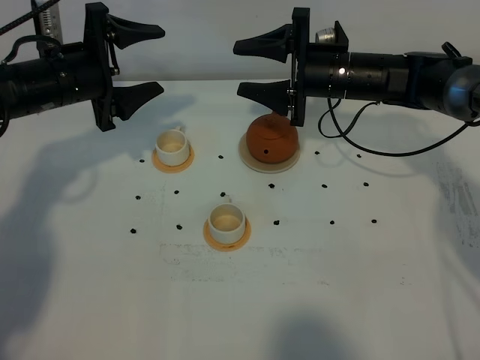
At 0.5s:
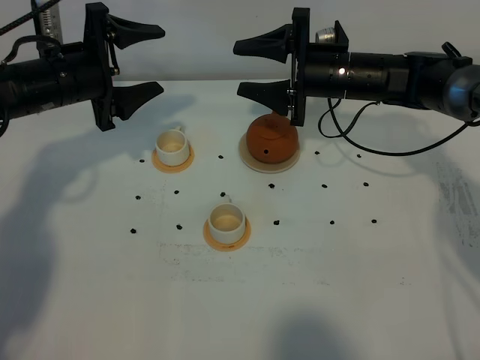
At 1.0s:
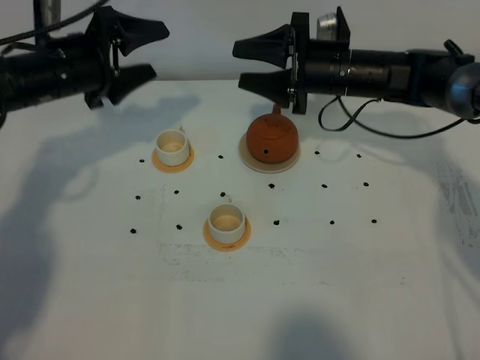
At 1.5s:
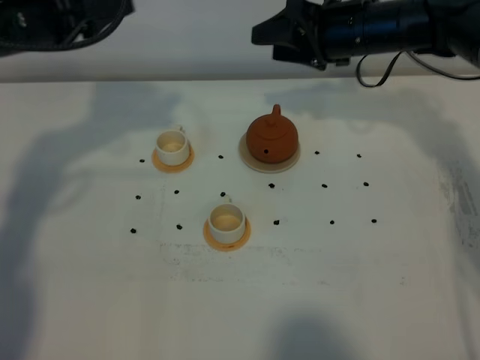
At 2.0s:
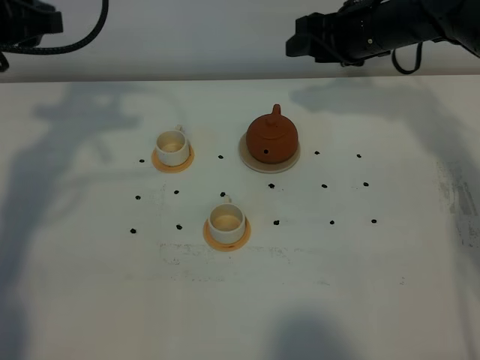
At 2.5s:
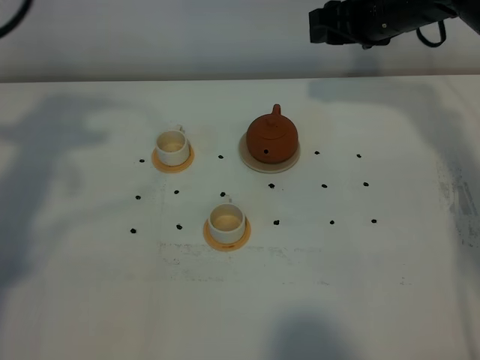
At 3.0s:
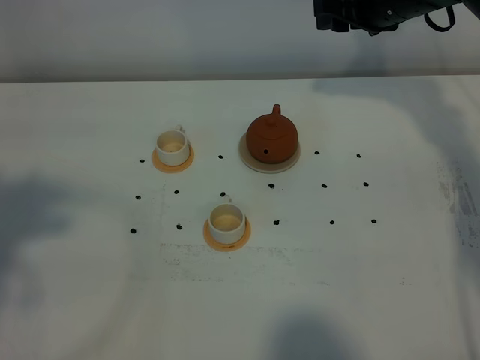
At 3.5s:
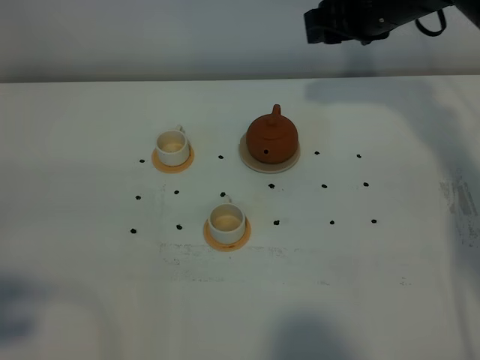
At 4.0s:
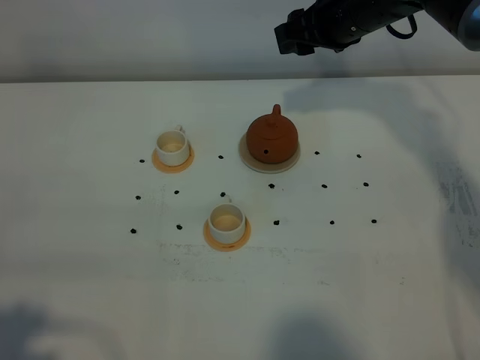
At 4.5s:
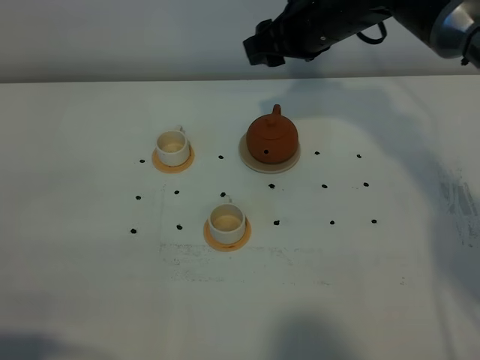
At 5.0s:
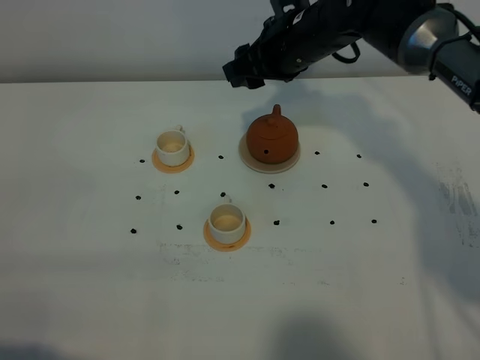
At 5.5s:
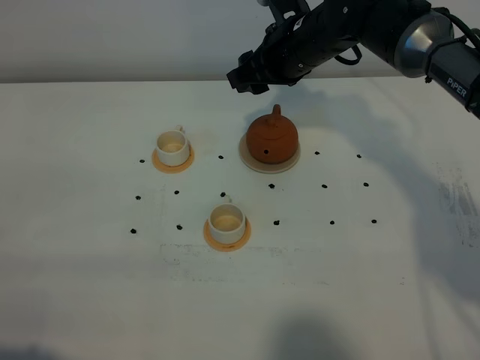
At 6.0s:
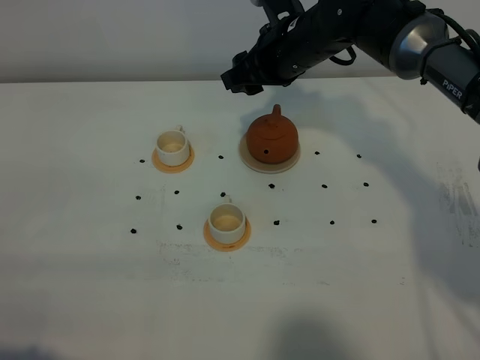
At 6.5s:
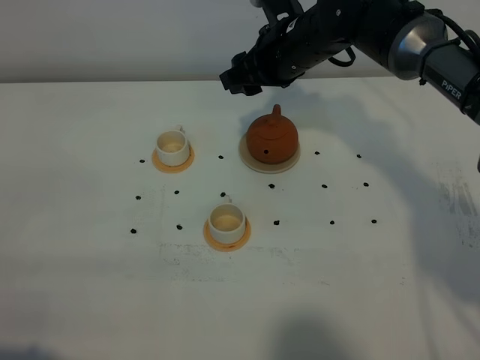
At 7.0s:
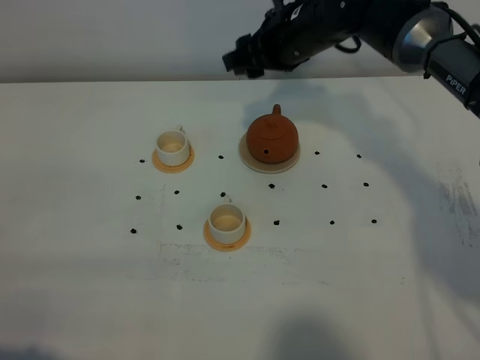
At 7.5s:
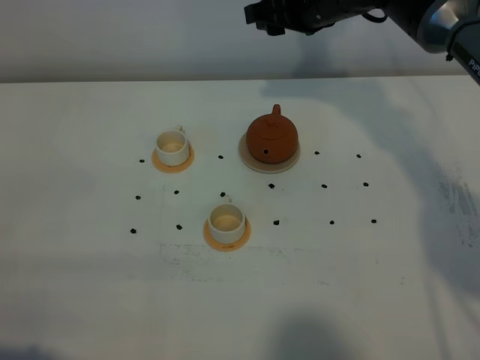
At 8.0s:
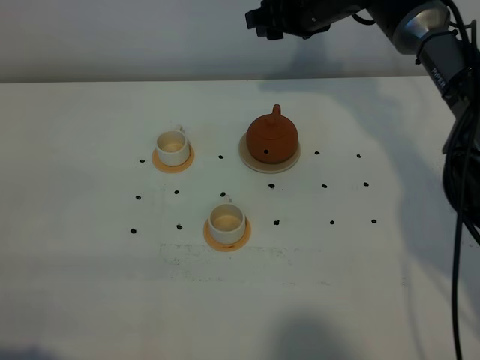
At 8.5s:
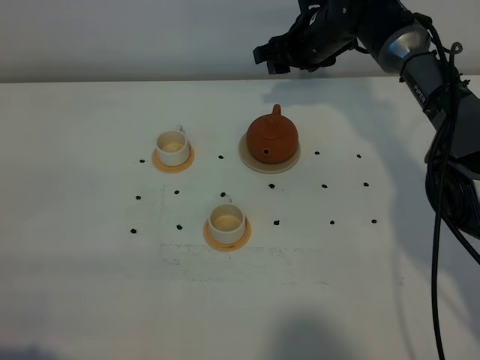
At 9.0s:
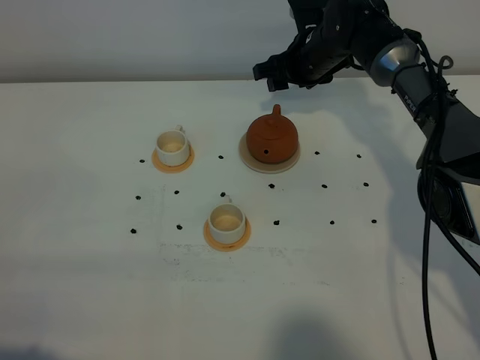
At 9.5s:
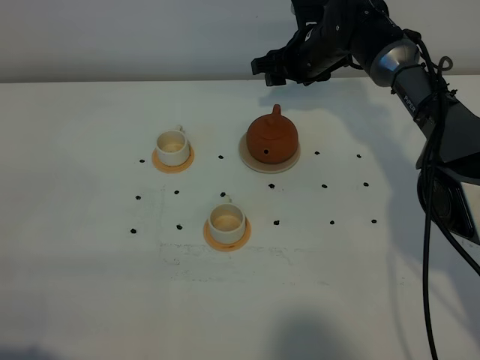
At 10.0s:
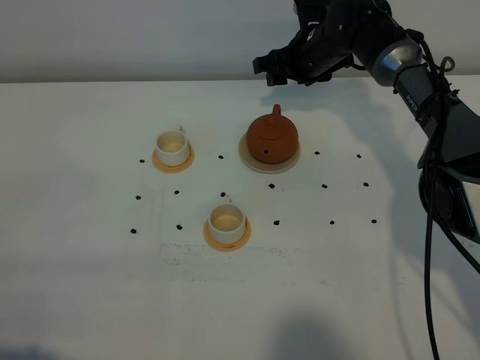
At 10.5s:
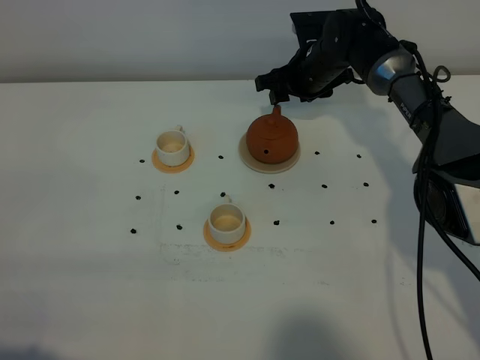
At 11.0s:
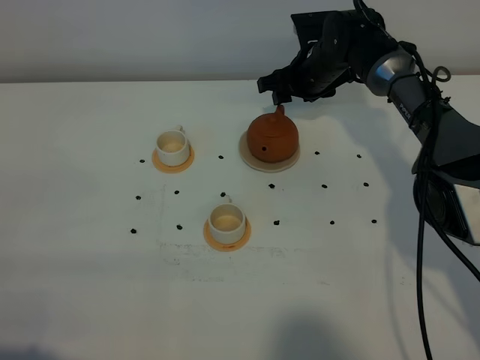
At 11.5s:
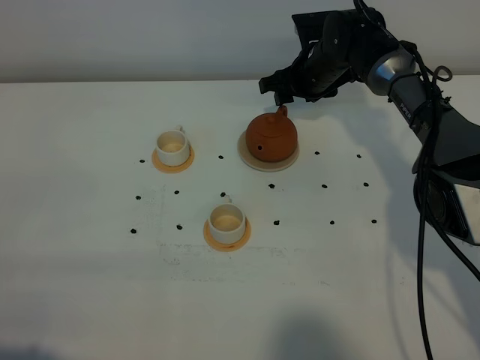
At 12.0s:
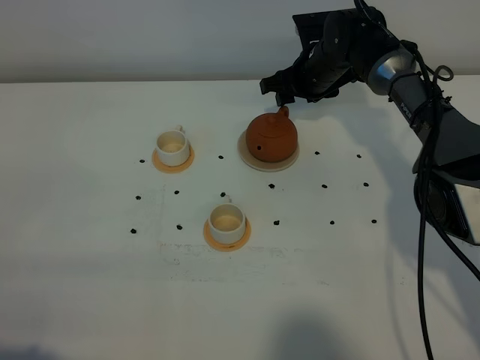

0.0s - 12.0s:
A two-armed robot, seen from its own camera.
Task of the whole recording: grasp the brown teapot and pour the tea into the two white teacups one by one, put the brown teapot back in its original place.
0.0s - 2.0s: The left gripper moves upward and to the left, some 15 cm, and closes. Meanwhile the right gripper shifts by some 5 cm.
2.0s - 4.0s: The left gripper travels backward by roughly 35 cm.
4.0s - 6.0s: The right gripper is displaced to the left by approximately 5 cm. Meanwhile the left gripper moves downward, about 10 cm.
6.0s - 8.0s: The right gripper goes roughly 5 cm forward.
8.0s - 10.0s: The right gripper moves downward, approximately 10 cm.
10.0s - 12.0s: The grippers stay close to where they were, moving slightly.

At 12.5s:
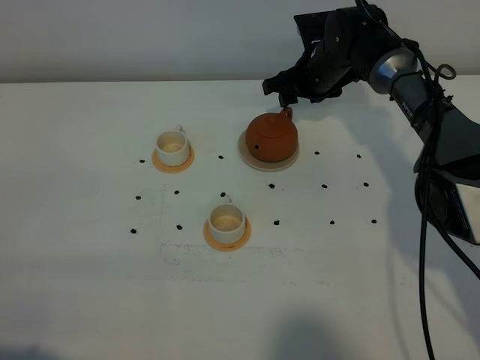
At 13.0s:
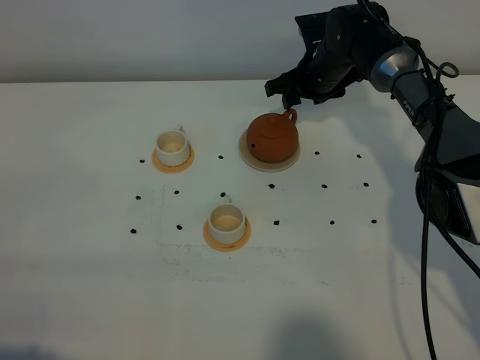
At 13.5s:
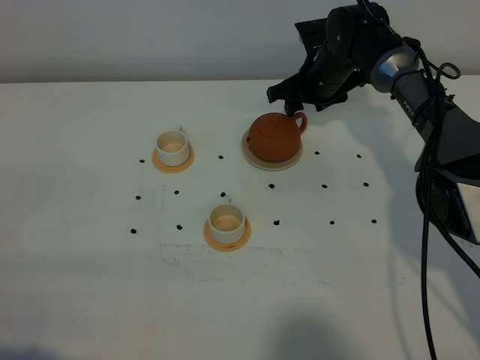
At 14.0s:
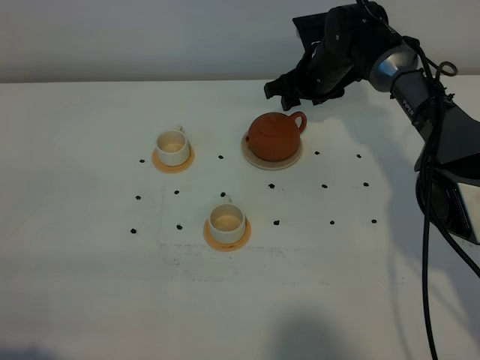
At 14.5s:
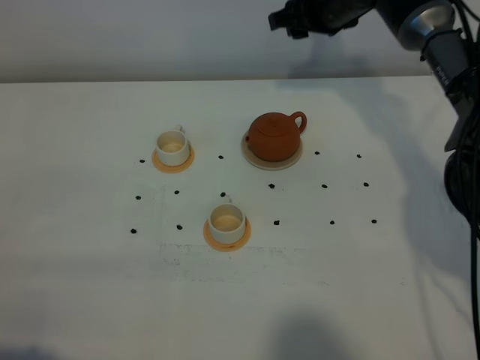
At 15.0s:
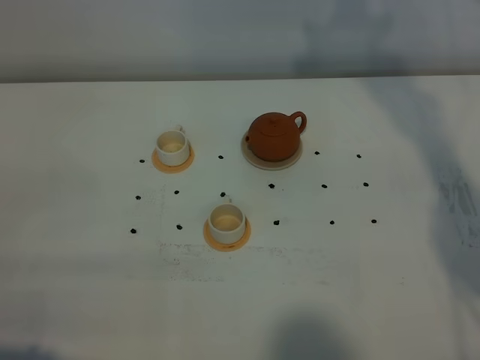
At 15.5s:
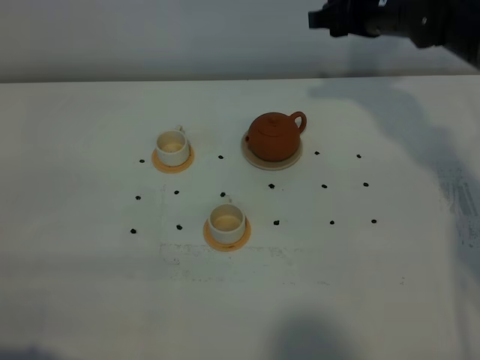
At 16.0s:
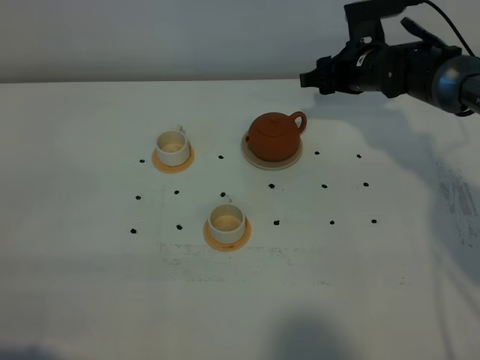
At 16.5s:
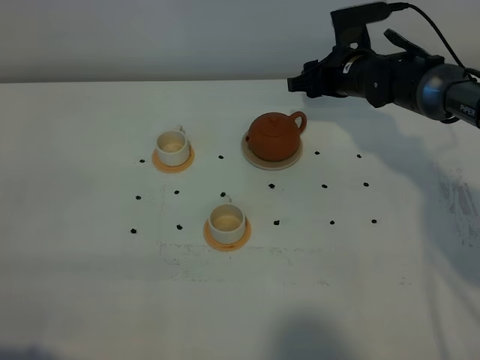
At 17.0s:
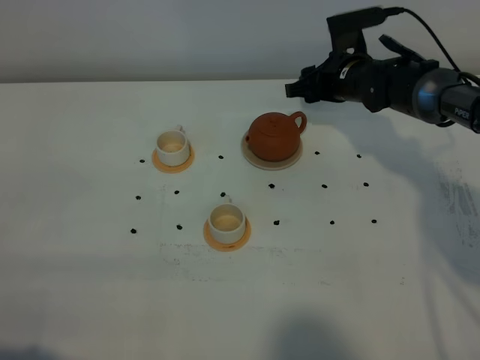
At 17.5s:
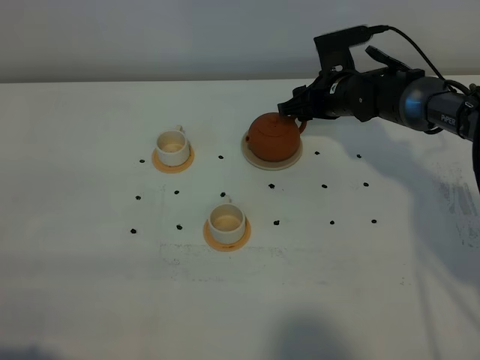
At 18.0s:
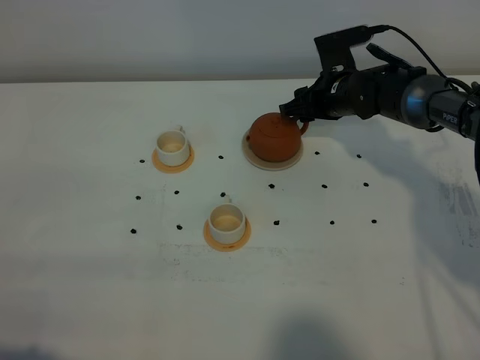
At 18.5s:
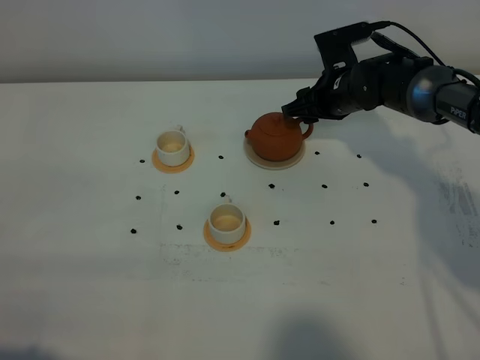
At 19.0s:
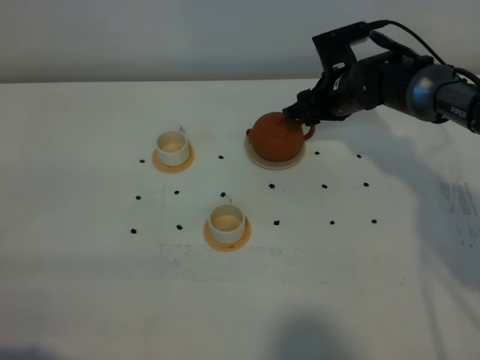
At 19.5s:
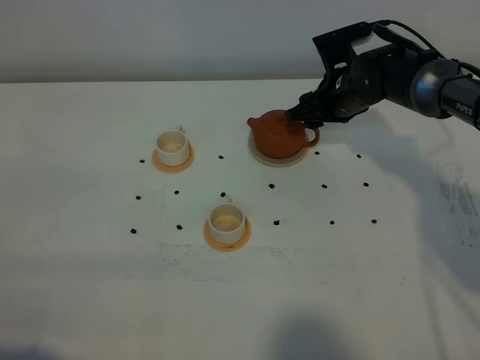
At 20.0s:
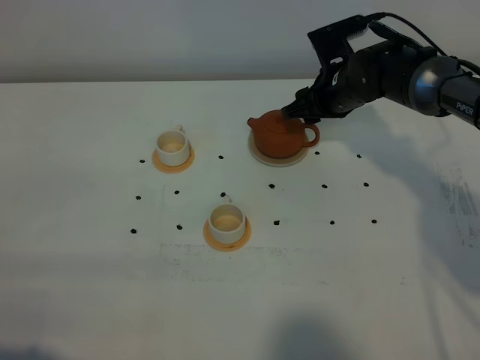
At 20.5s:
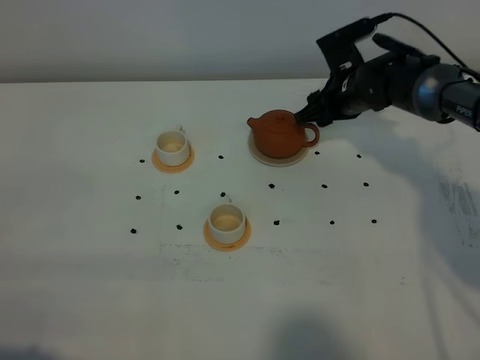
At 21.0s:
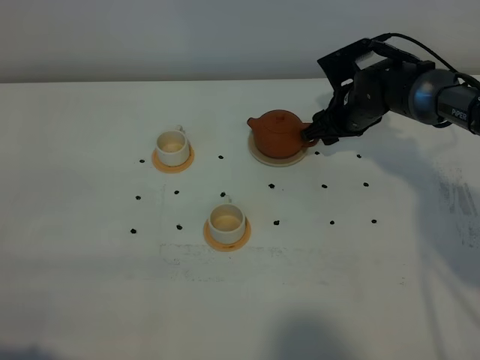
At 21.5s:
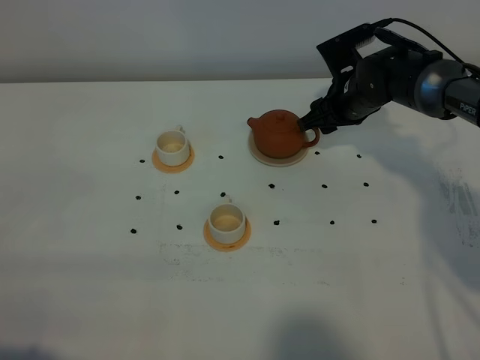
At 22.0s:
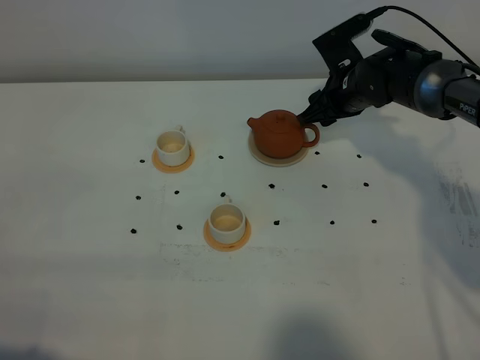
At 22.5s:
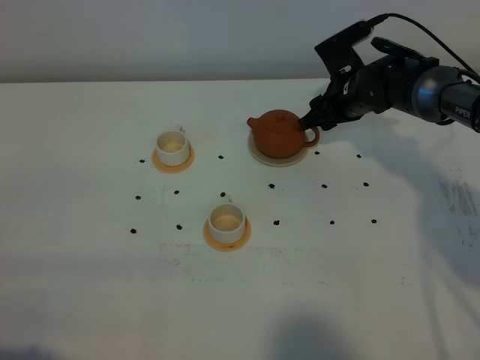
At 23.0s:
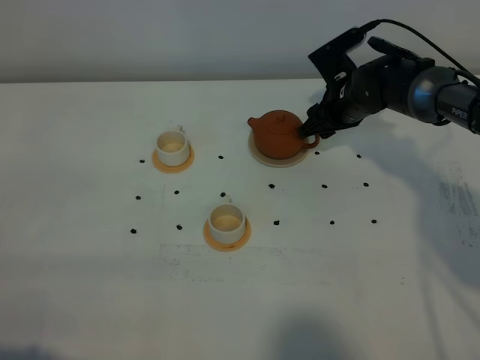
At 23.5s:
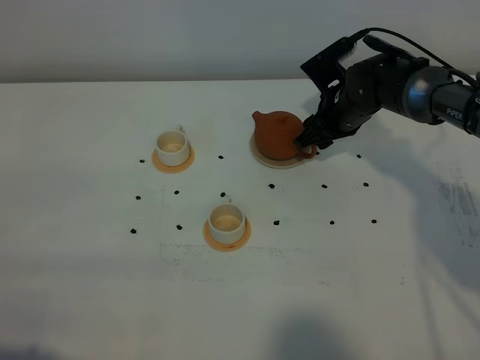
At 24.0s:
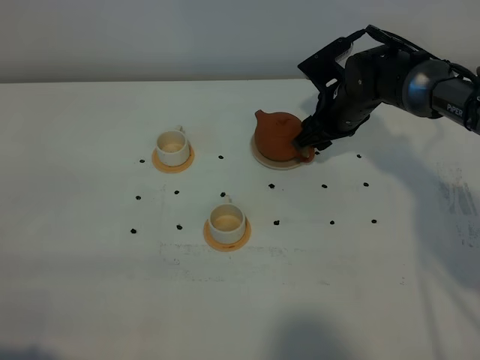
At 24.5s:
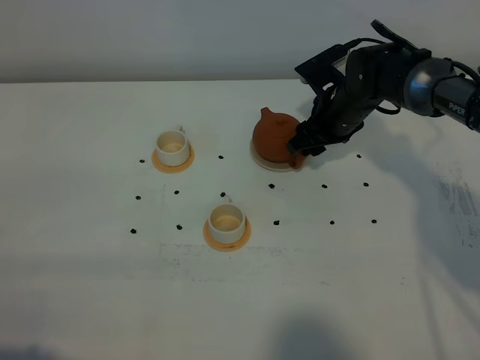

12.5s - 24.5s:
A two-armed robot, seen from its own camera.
Task of the whole recording: grasp the brown teapot and pour the tea into the two white teacups one by one, put the brown teapot back in its original place.
12.5s - 14.5s: The right gripper heads upward, covering approximately 10 cm.
14.5s - 16.5s: The right gripper is displaced downward by about 10 cm.
16.5s - 20.5s: The grippers stay close to where they were, moving slightly.
20.5s - 24.5s: The grippers make only small movements.

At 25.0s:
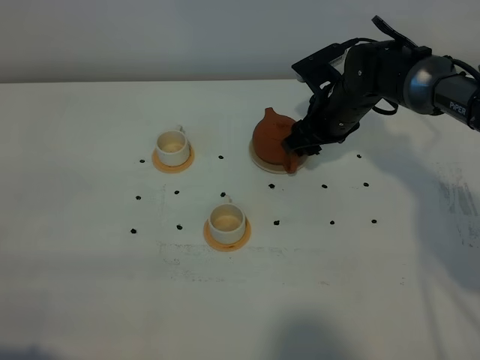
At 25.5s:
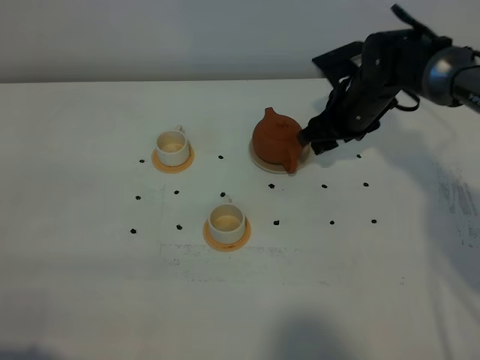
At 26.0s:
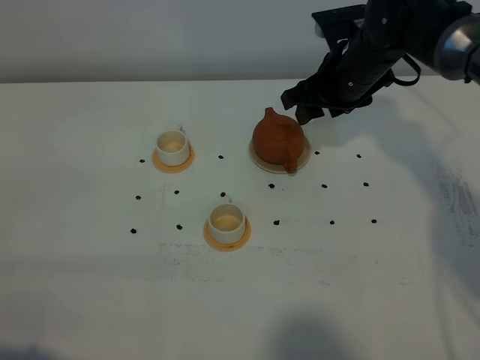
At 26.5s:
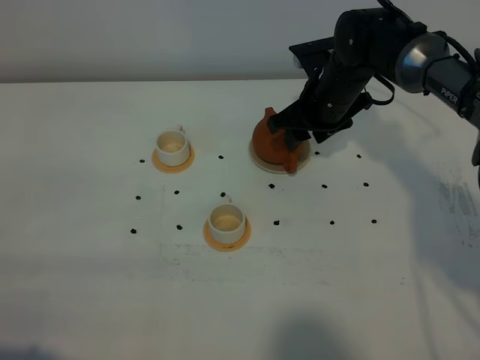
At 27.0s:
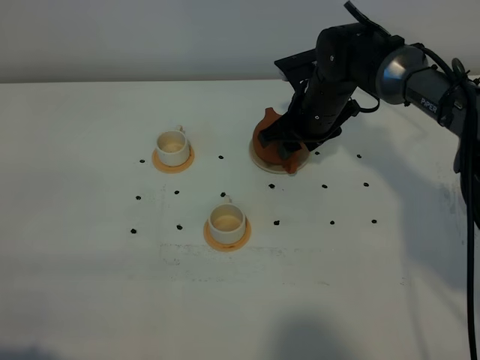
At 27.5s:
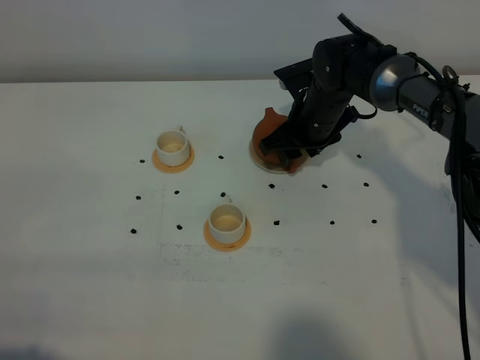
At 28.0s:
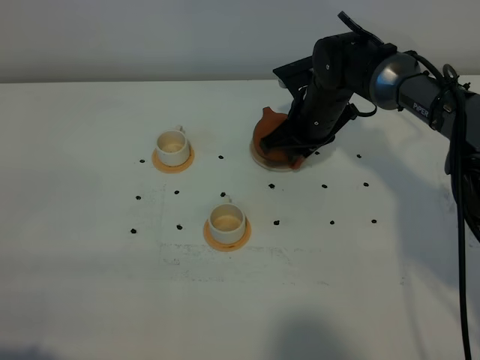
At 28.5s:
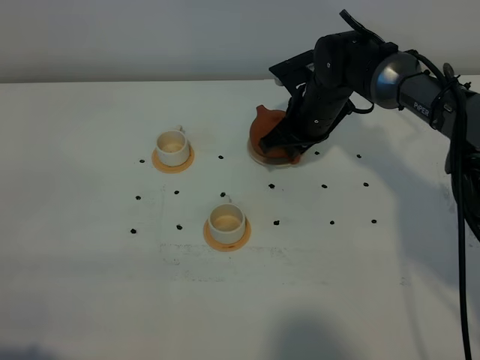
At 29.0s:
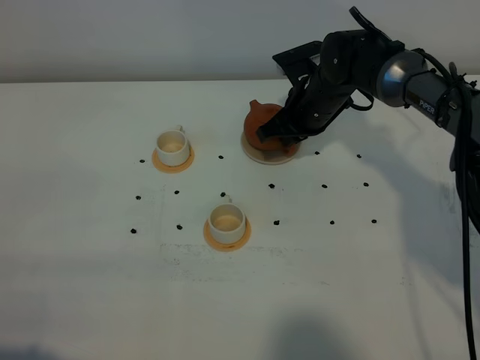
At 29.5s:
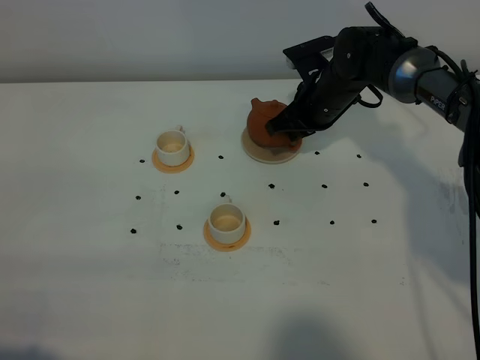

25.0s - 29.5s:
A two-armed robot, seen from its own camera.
Task of the whole recording: grasp the brown teapot and pour the tea into the two white teacups one by one, put the brown teapot back in its original place.
27.0s - 29.5s: The right gripper closes.
